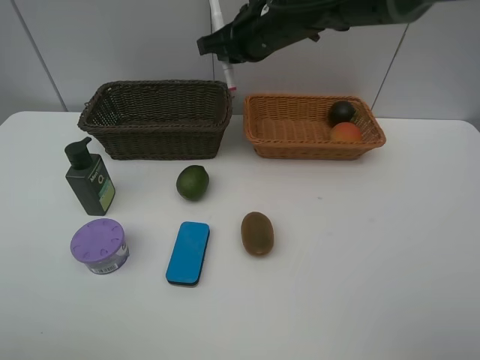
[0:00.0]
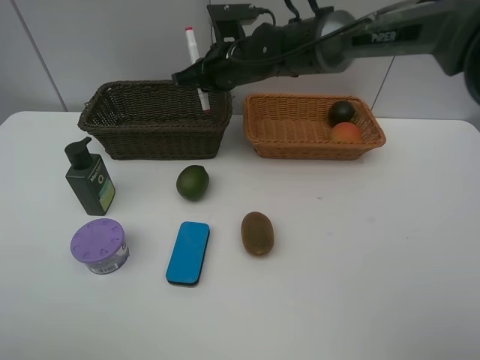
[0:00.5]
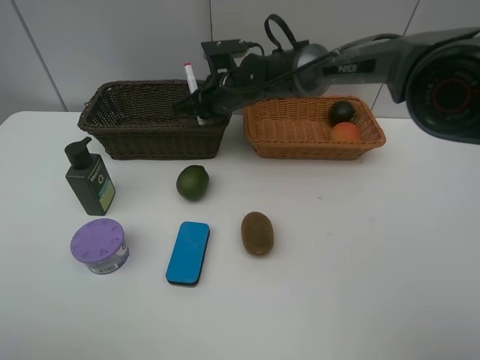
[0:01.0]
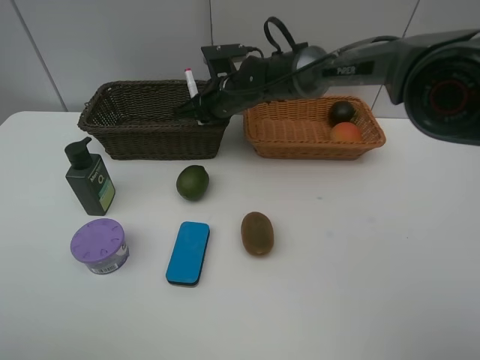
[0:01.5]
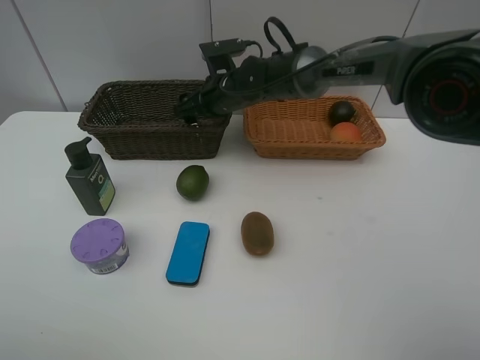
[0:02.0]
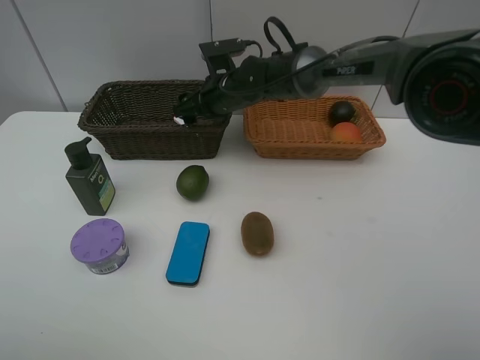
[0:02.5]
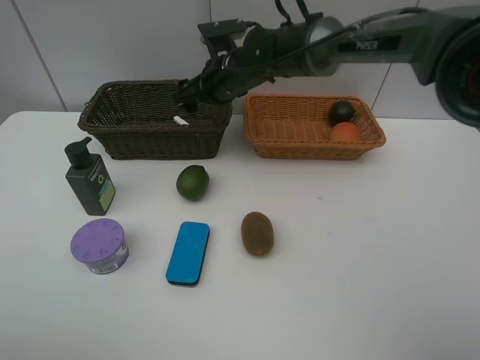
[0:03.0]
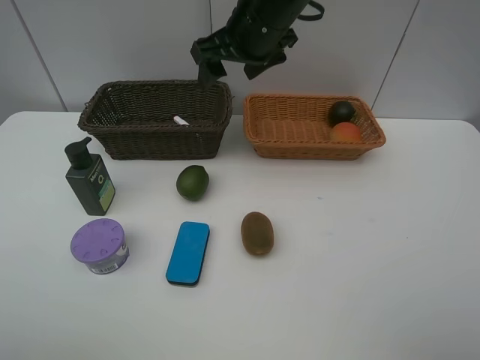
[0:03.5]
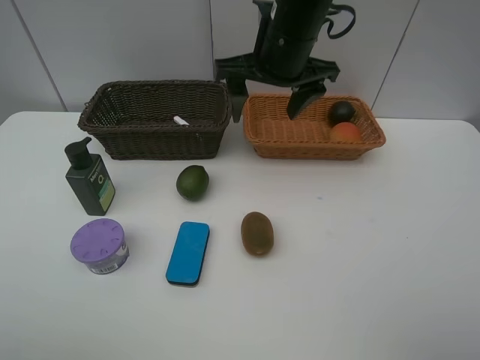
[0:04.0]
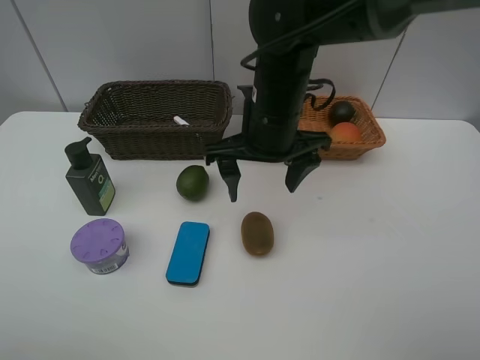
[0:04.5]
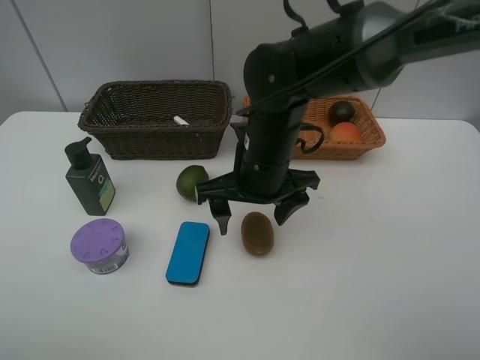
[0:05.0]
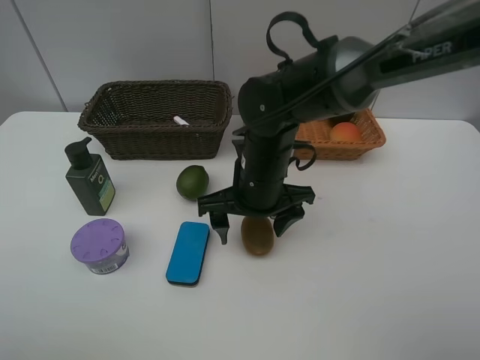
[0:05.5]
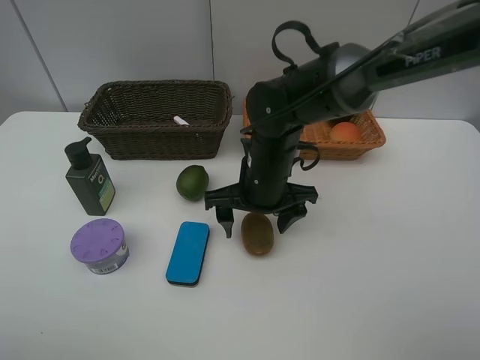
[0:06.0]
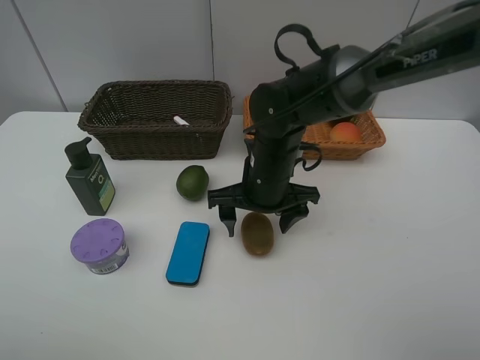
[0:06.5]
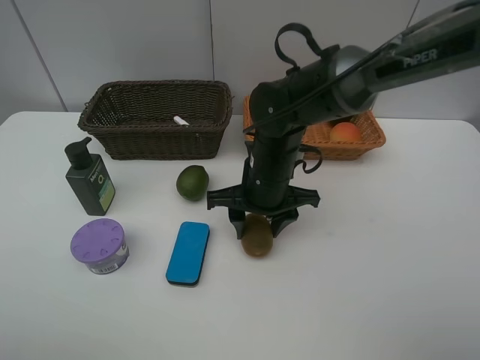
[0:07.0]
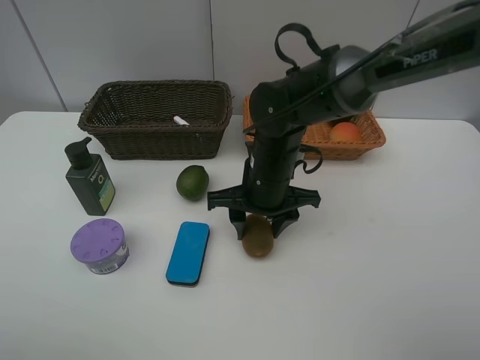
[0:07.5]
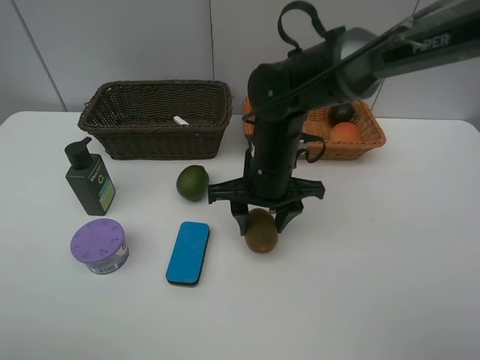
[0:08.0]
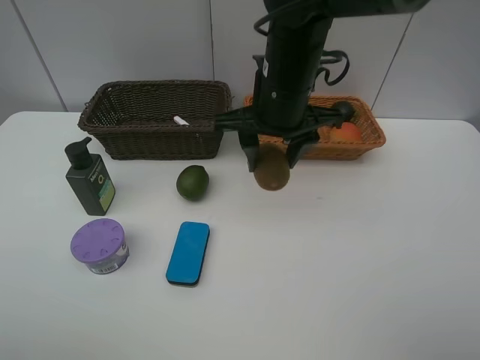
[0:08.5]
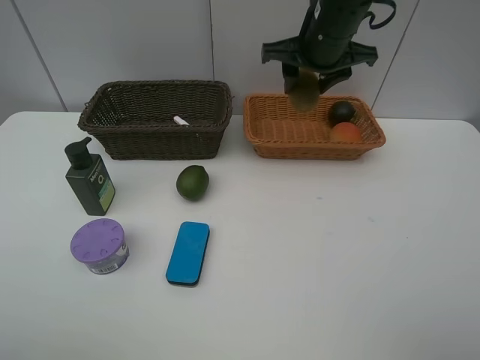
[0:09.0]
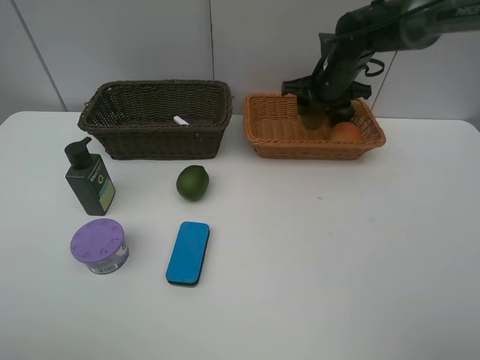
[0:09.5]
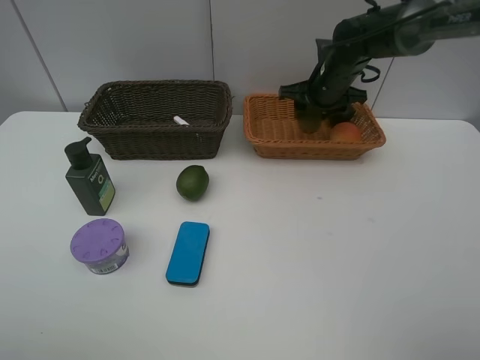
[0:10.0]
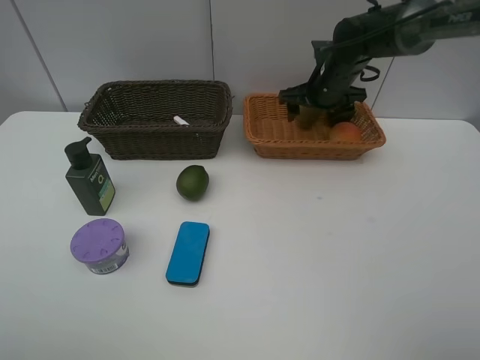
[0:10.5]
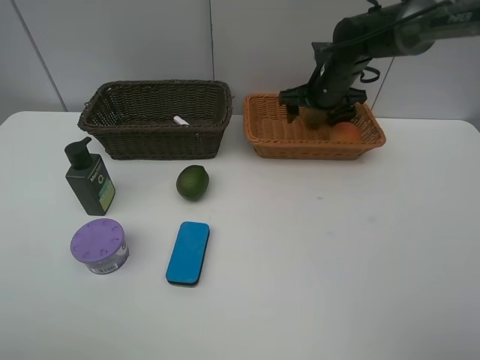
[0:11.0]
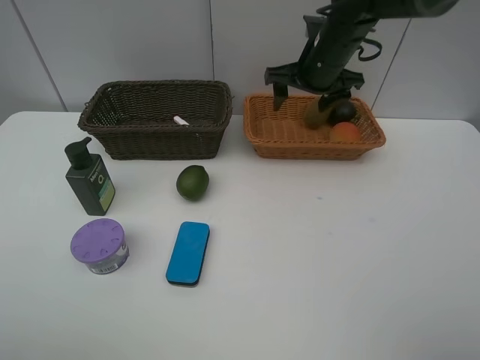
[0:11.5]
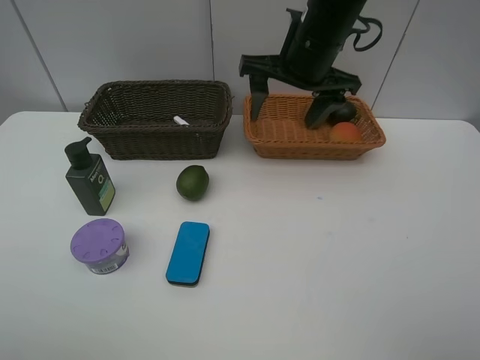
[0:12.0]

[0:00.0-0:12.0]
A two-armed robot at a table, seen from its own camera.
Task of the whole recording: Place multiple objects separately in different baskets.
Step, 0:00.0 to 0:02.0: Place the red marker in the dark basket with right gripper.
Step, 0:02.5 to 0:08.0: Pick up kiwi with right gripper.
Step, 0:08.5 to 0:10.5: Place the kiwi in the light basket with right gripper.
0:00.0 to 0:02.0: The right gripper heads downward and to the left, covering about 10 cm, and opens its fingers.
0:02.0 to 0:04.0: The right gripper travels upward, backward and to the right by about 20 cm.
0:04.0 to 0:06.0: The right gripper moves downward, roughly 15 cm.
0:06.0 to 0:08.0: The right gripper closes up.
0:08.0 to 0:10.0: The right gripper moves forward and to the right, approximately 20 cm.
0:10.0 to 0:12.0: The right gripper travels backward, upward and to the left by some 15 cm, and opens.

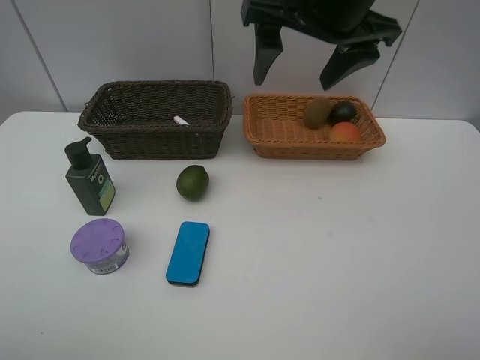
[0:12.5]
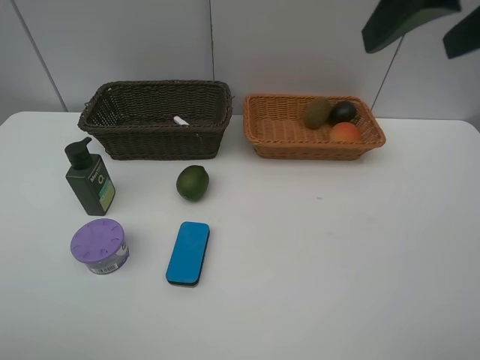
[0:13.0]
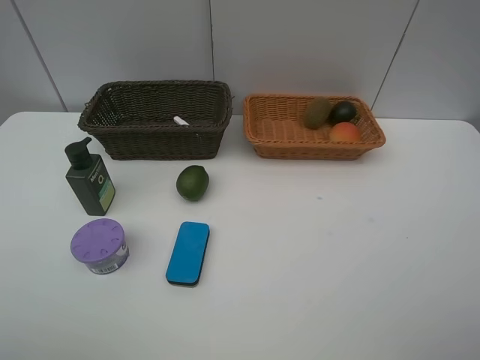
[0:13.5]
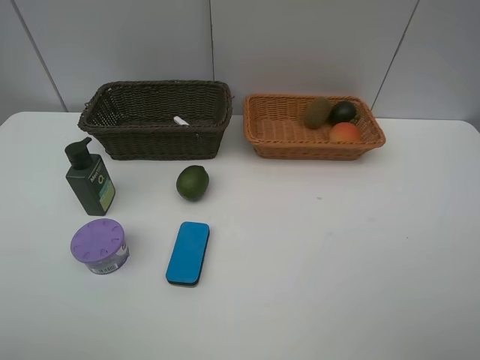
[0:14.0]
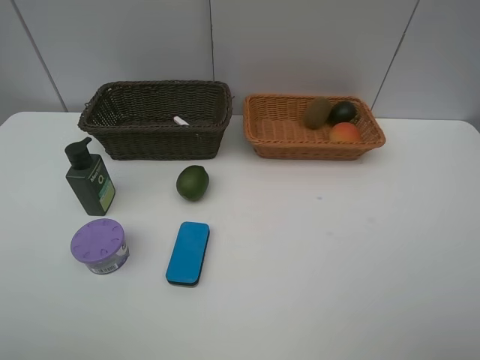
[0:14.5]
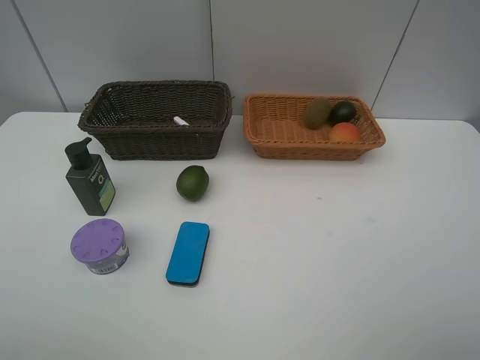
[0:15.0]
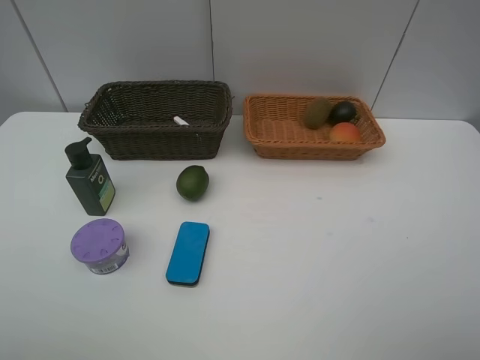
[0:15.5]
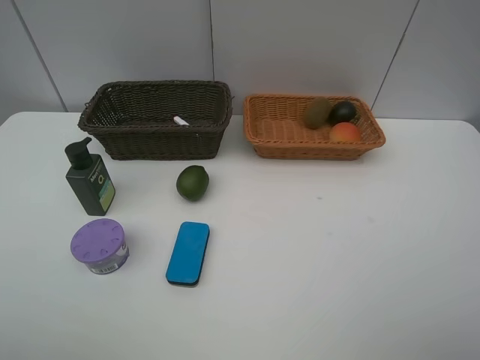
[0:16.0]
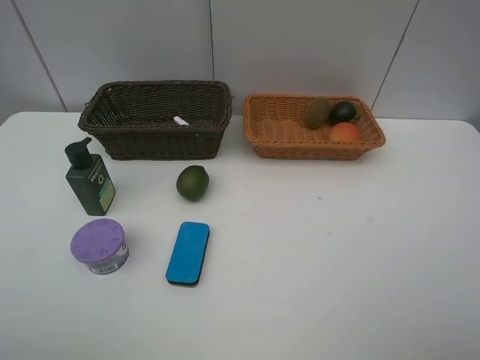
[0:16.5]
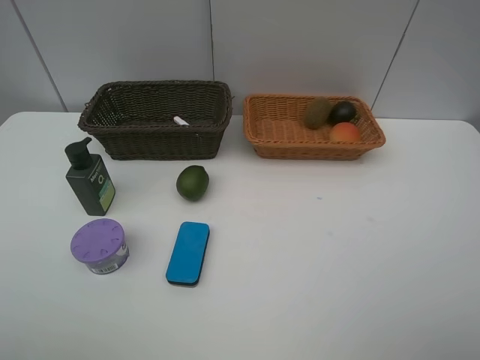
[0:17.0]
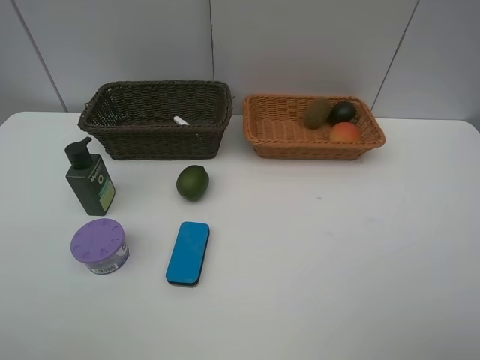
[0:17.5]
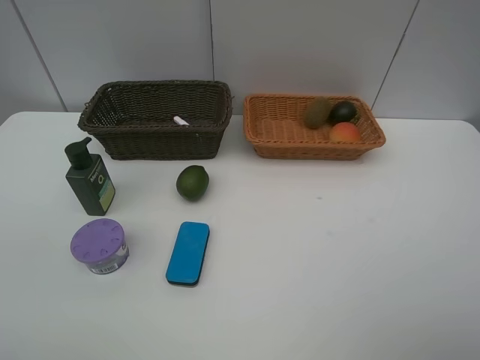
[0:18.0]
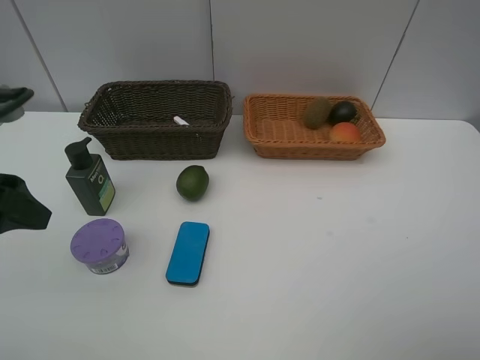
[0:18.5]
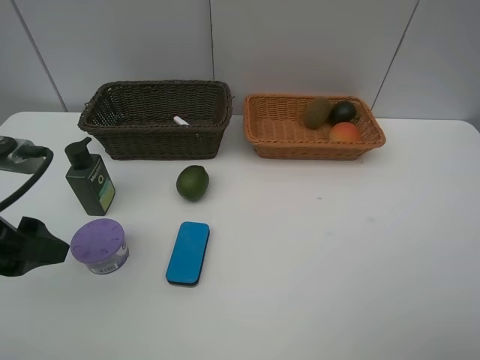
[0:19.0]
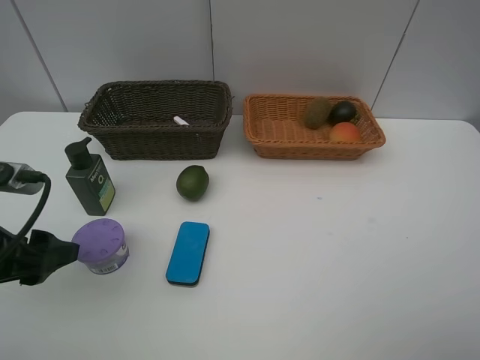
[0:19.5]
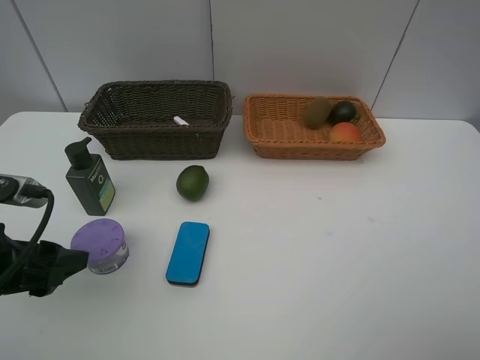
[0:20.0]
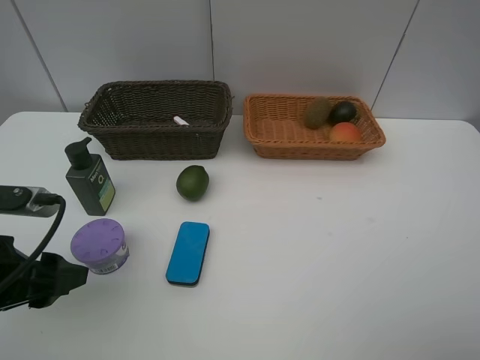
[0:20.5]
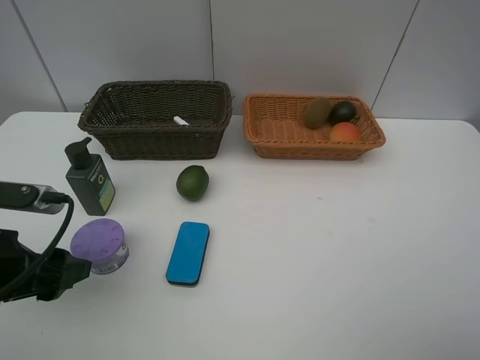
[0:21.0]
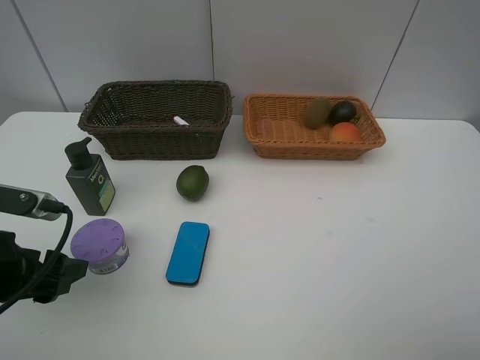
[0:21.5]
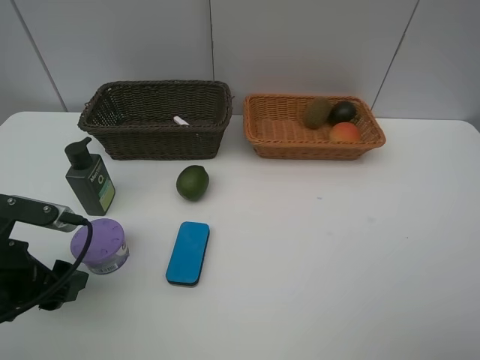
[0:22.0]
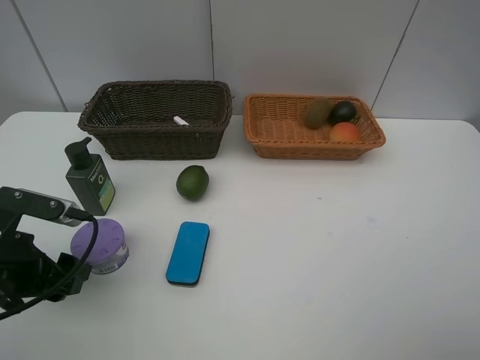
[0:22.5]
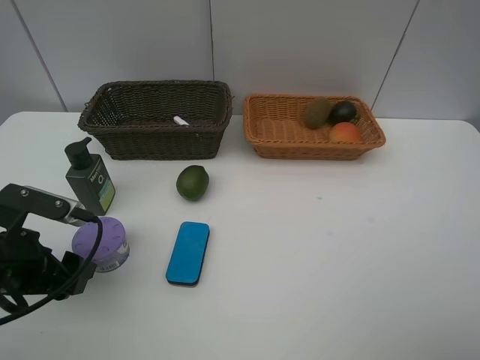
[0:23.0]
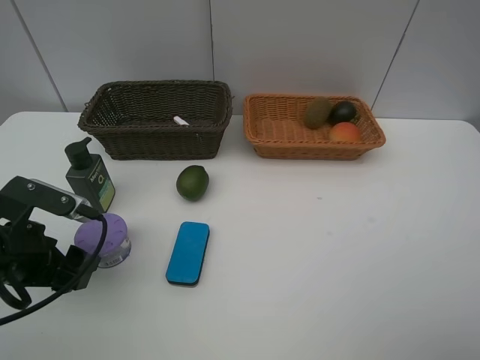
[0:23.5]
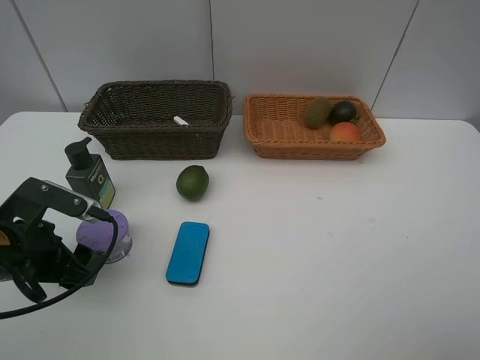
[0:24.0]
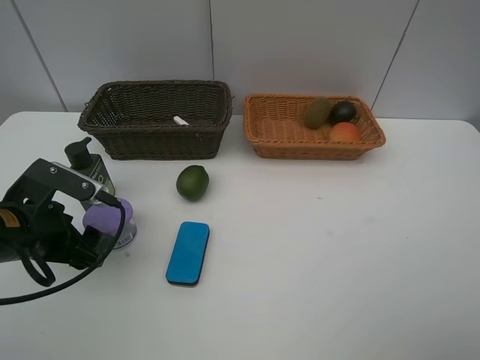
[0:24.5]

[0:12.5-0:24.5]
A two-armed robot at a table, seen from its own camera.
Task of the whole recording: Place multiple objects separately in different baskets.
0:12.5 to 0:14.5: The right gripper shifts approximately 35 cm backward and to the right.
0:16.5 to 0:18.5: The left gripper is displaced forward by roughly 15 cm.
0:18.5 to 0:20.5: The left gripper travels downward by about 10 cm.
0:20.5 to 0:22.5: The grippers stay close to where they were, moving slightly.
0:22.5 to 0:24.5: There are only small adjustments of the grippers.

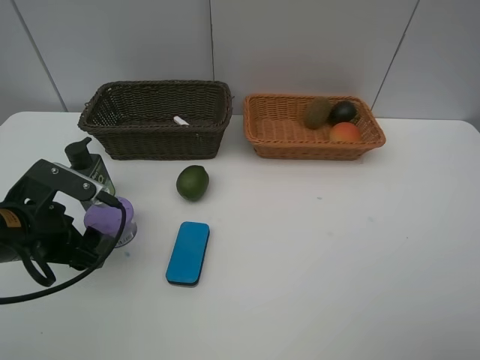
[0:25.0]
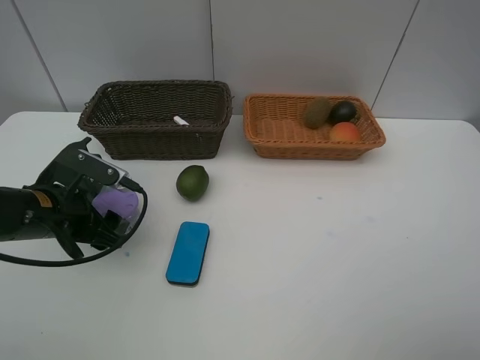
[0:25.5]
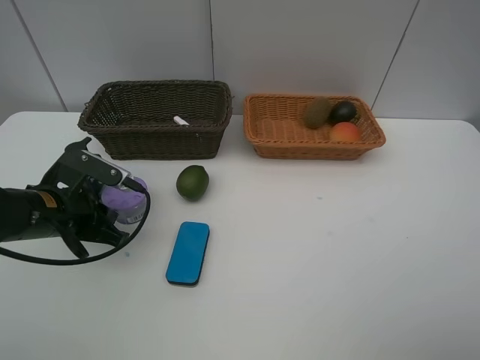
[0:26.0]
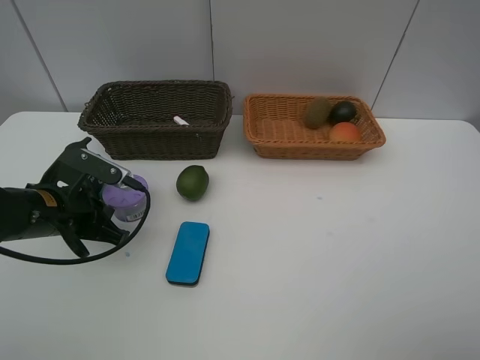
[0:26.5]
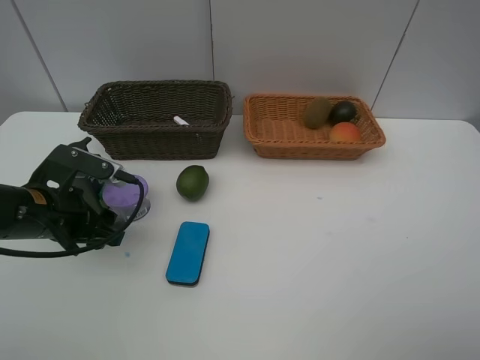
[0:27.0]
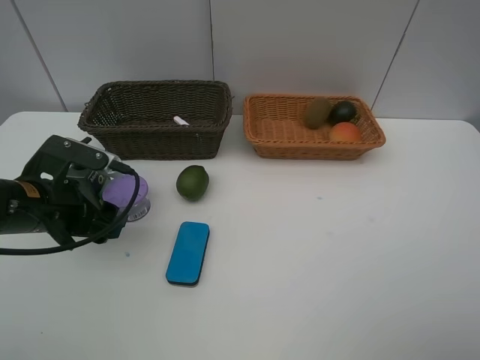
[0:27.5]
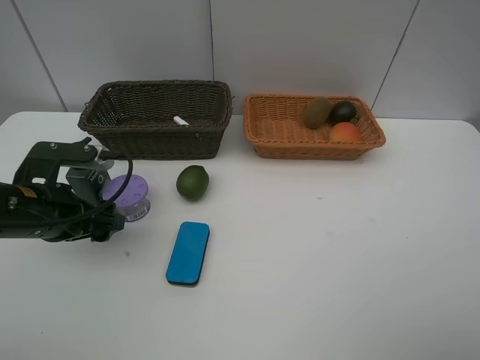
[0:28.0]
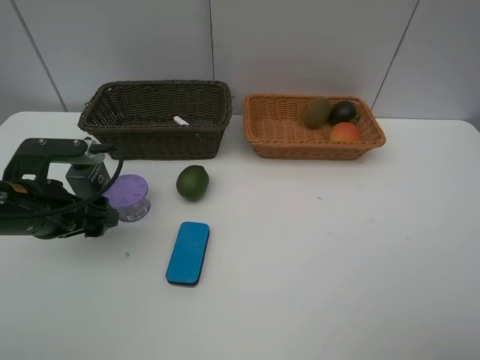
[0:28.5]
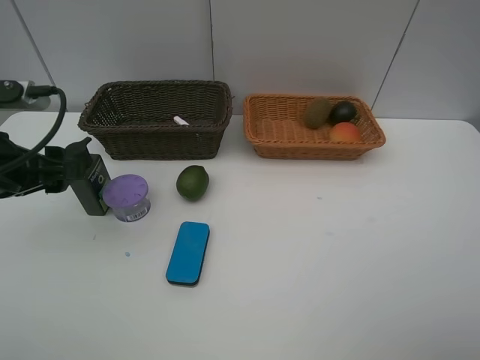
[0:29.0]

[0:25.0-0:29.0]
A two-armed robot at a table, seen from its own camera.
Task of the whole recording: Place multiple objects separately in different baskets.
0:25.0 to 0:27.0: The left gripper closes, then reopens.
0:27.0 to 0:29.0: The left gripper travels upward by approximately 10 cm.
